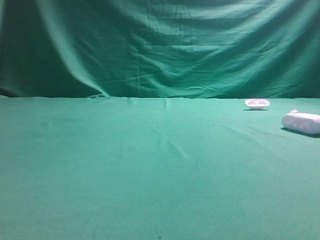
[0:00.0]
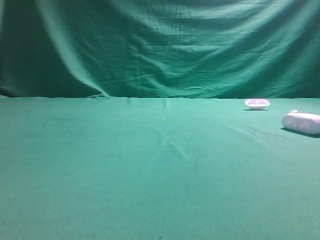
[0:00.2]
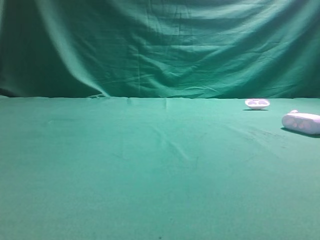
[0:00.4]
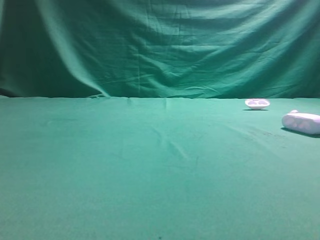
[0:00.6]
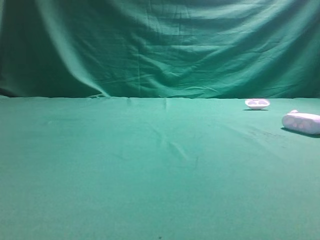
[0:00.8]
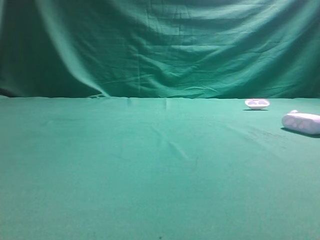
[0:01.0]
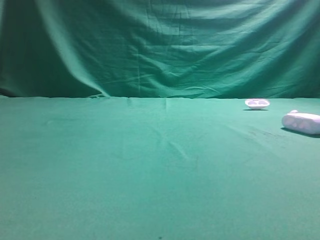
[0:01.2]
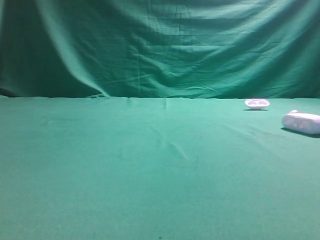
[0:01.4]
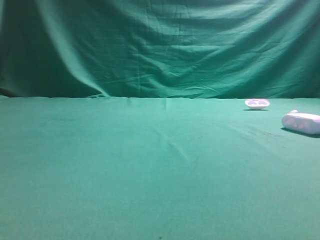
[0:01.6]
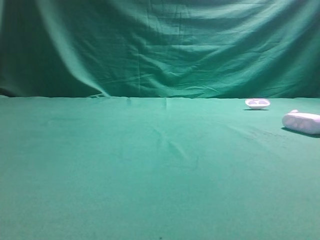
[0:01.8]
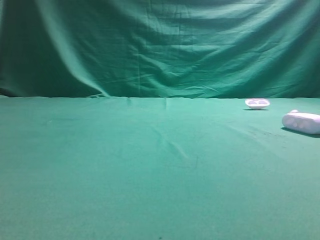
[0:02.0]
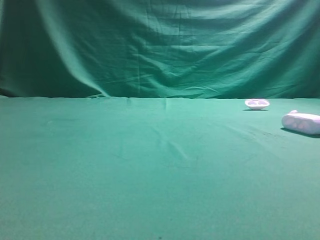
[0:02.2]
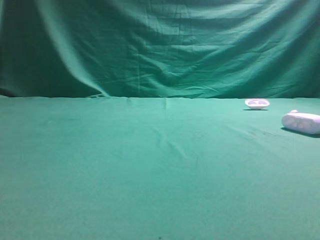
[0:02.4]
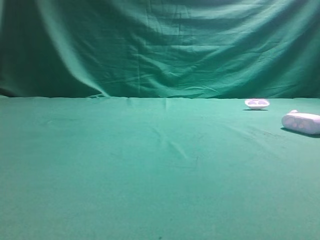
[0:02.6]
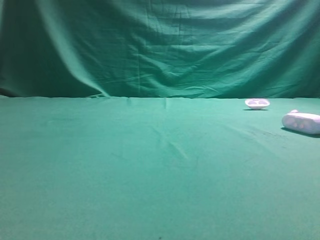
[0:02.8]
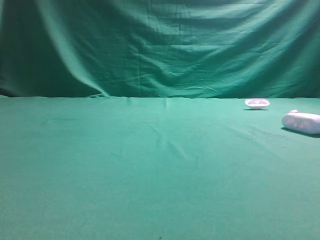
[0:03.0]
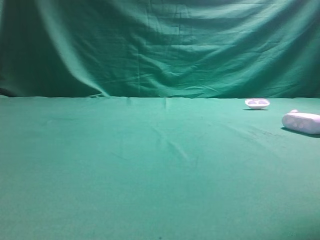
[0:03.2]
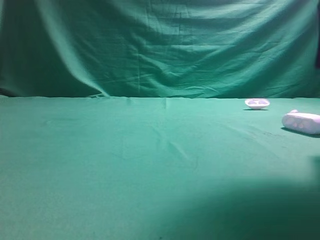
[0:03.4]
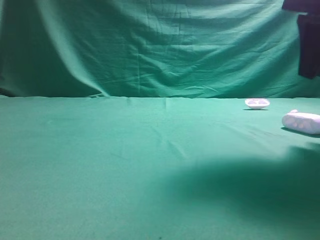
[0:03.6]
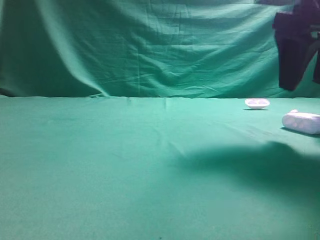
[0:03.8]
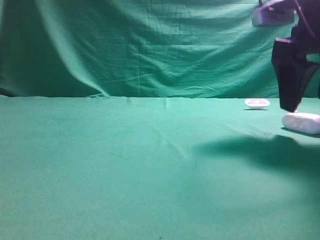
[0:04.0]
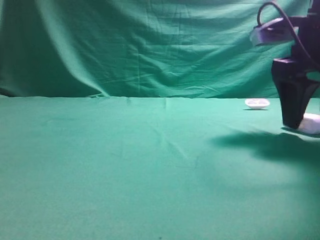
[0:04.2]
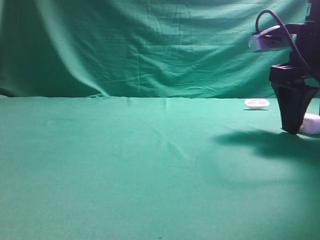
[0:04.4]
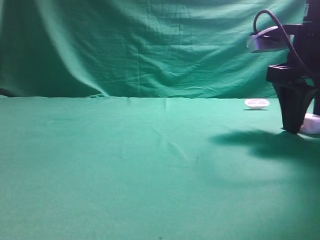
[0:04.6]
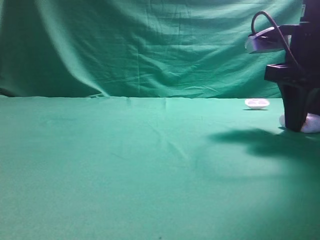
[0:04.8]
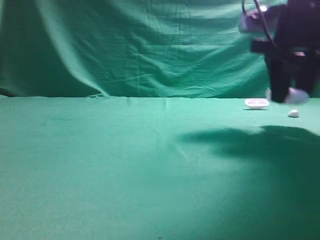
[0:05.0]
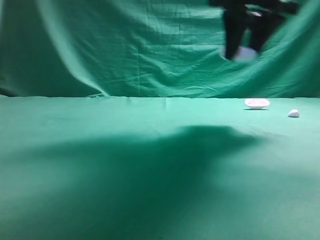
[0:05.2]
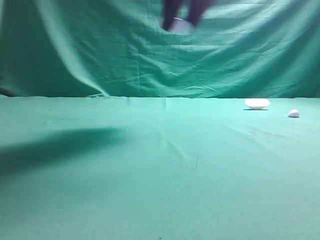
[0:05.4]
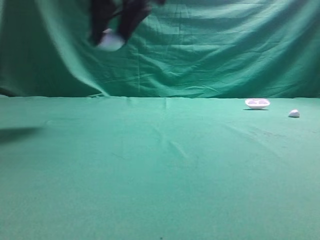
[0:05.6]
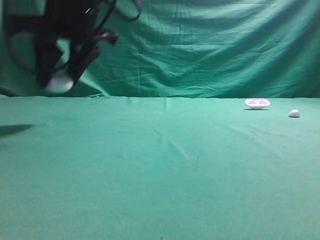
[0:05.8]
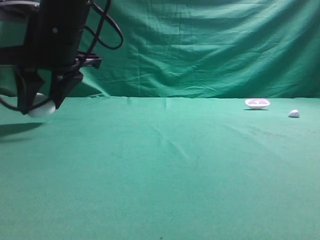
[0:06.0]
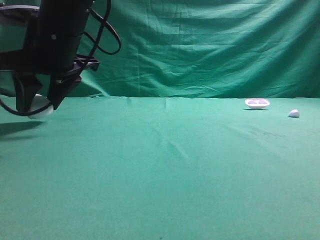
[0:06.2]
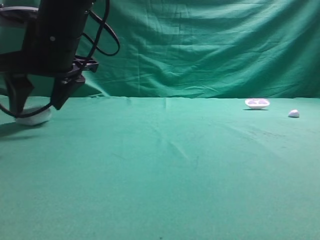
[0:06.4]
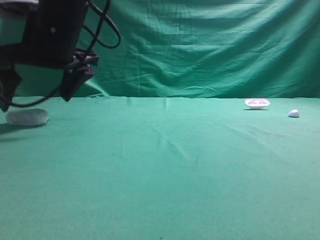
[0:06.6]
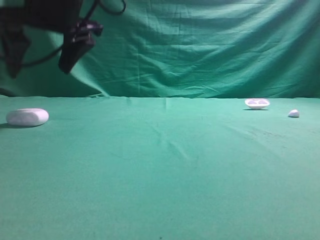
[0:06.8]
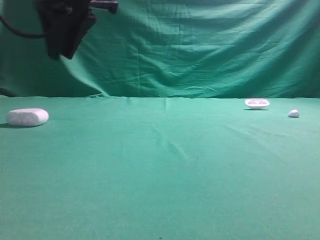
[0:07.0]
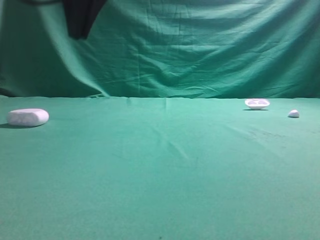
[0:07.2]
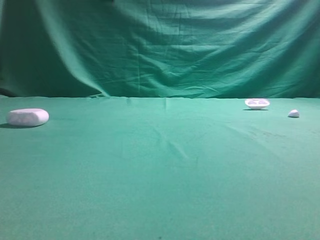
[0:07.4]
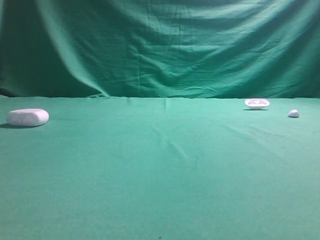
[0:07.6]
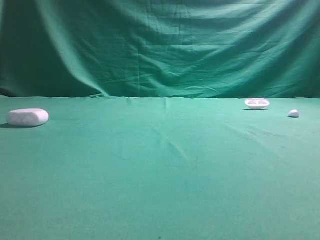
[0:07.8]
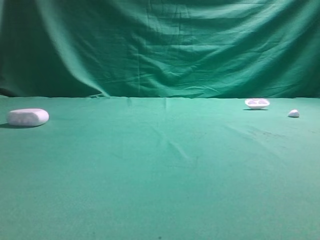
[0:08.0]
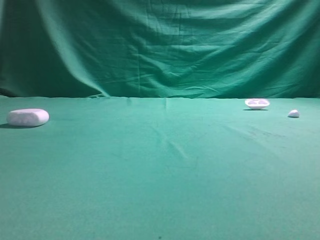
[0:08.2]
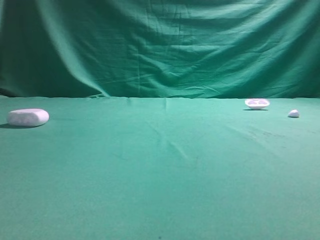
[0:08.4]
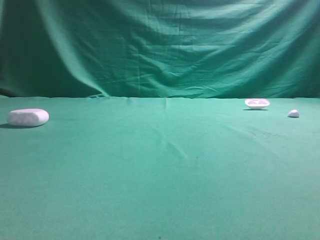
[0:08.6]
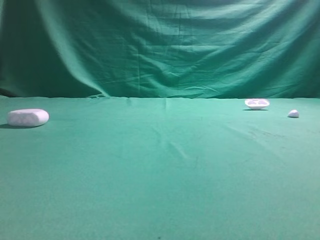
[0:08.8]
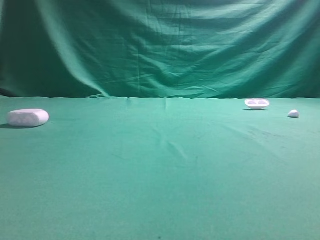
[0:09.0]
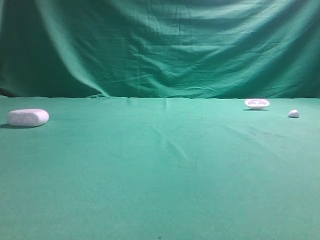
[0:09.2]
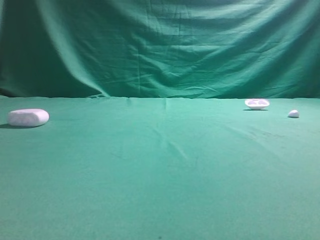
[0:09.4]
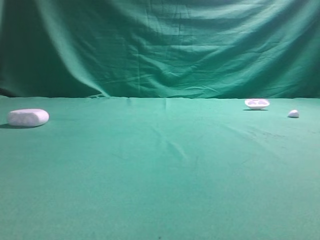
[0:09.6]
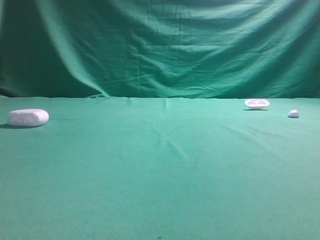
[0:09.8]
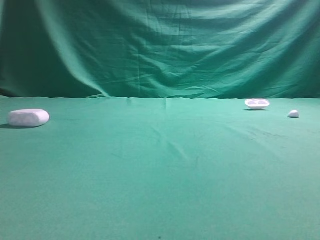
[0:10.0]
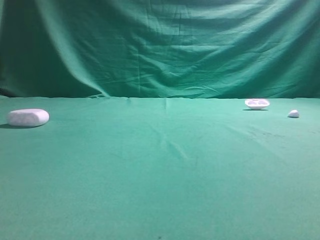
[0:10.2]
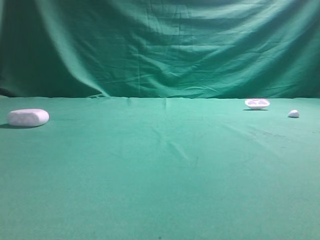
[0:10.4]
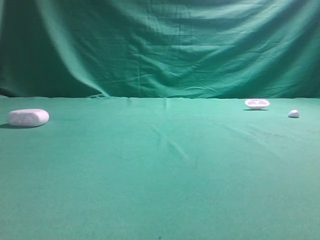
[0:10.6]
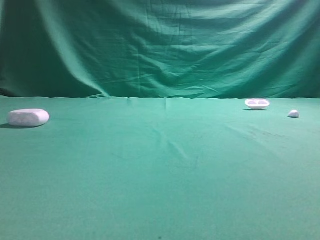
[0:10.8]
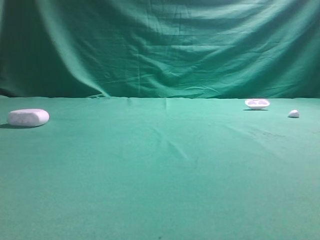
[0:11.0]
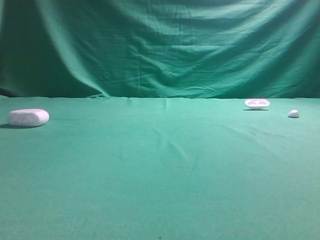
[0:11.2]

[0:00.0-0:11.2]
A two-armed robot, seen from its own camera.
Step, 0:00.0 to 0:05.2: Grasp the Bluetooth earphone case.
Step, 0:05.4 to 0:06.8: Place bluetooth earphone case on the left side of the table.
